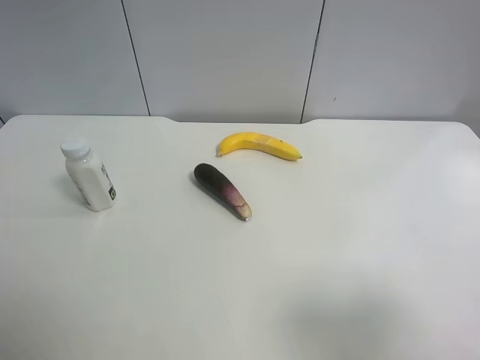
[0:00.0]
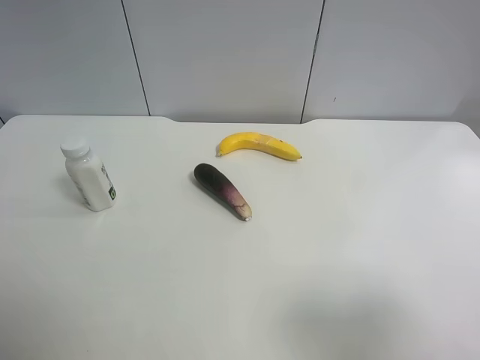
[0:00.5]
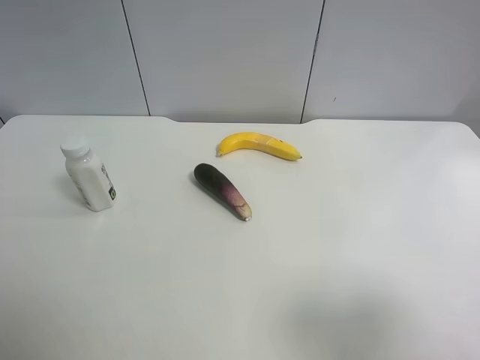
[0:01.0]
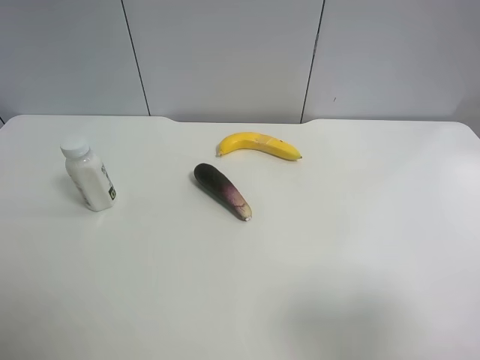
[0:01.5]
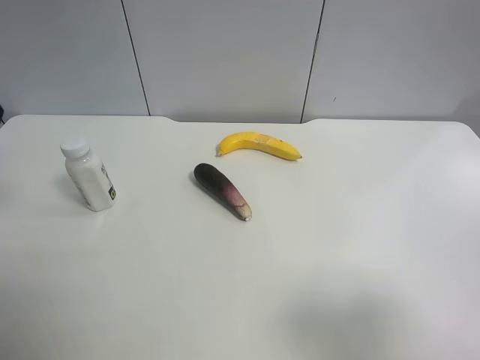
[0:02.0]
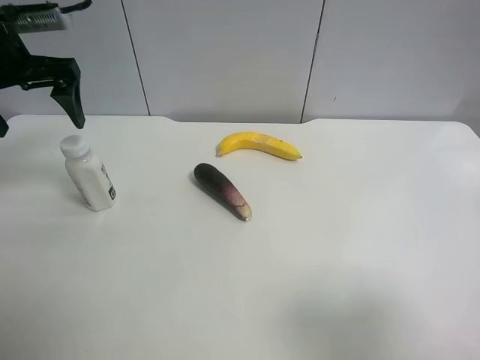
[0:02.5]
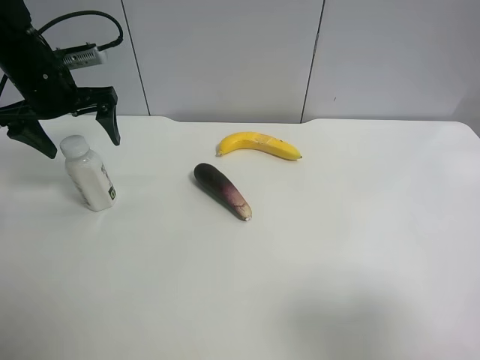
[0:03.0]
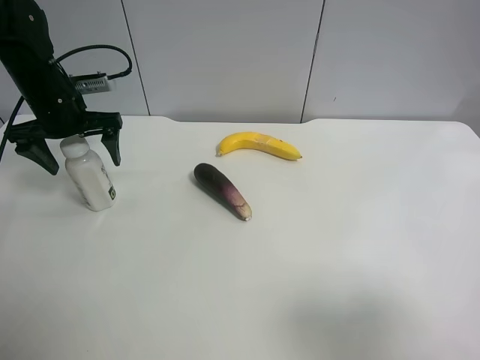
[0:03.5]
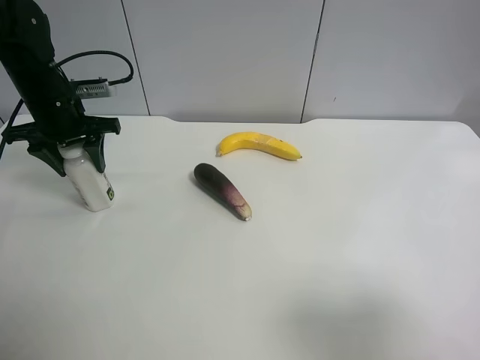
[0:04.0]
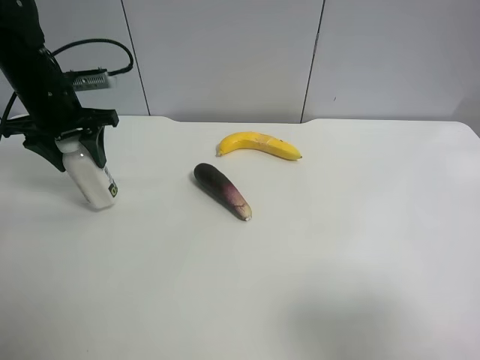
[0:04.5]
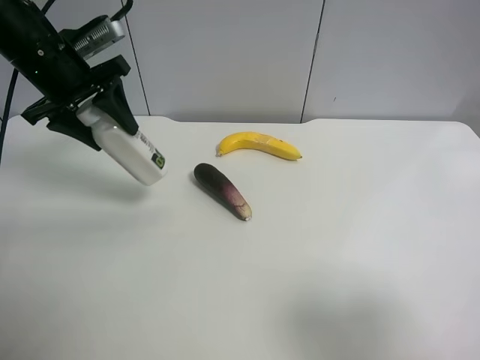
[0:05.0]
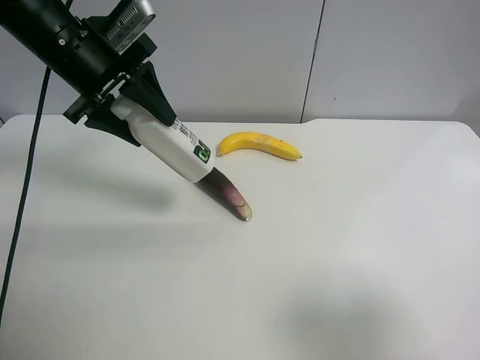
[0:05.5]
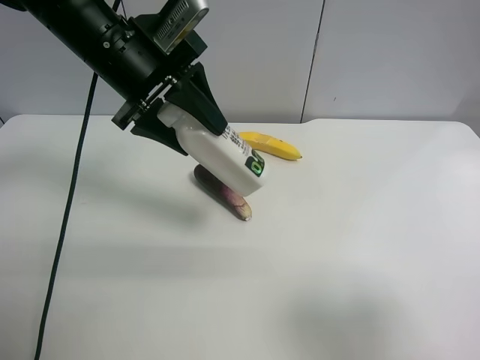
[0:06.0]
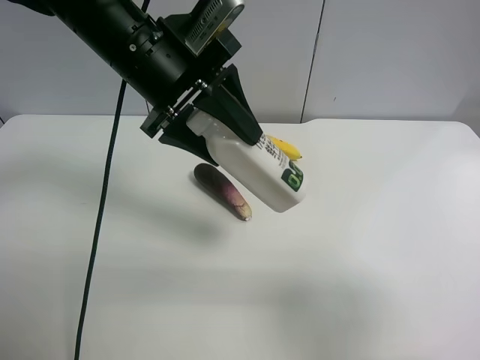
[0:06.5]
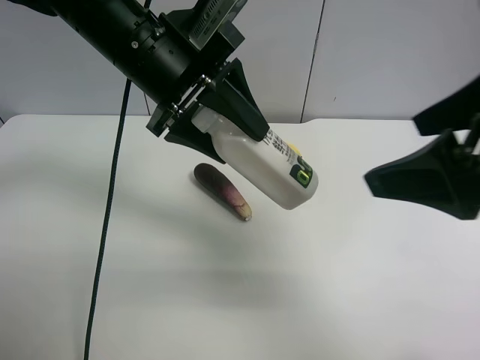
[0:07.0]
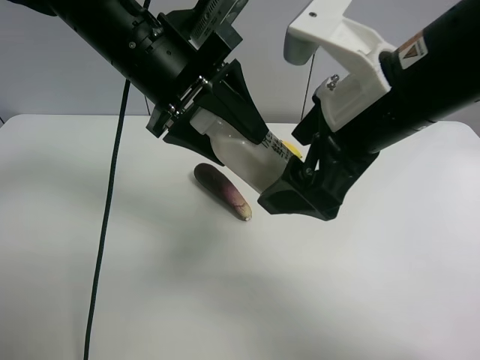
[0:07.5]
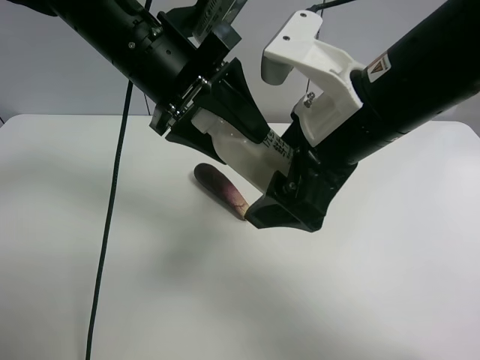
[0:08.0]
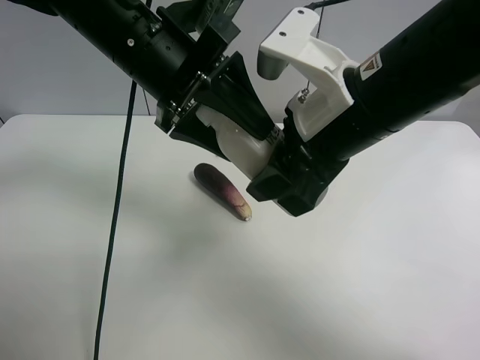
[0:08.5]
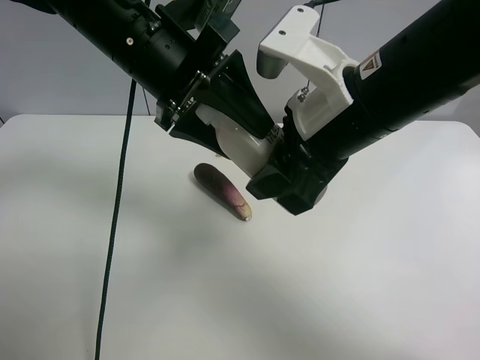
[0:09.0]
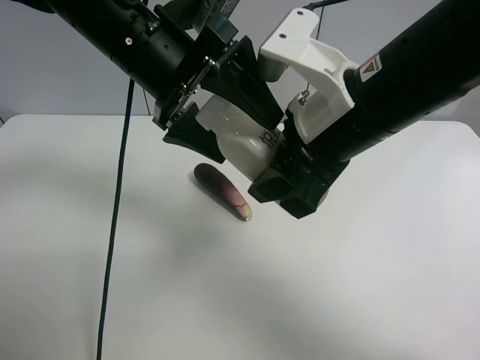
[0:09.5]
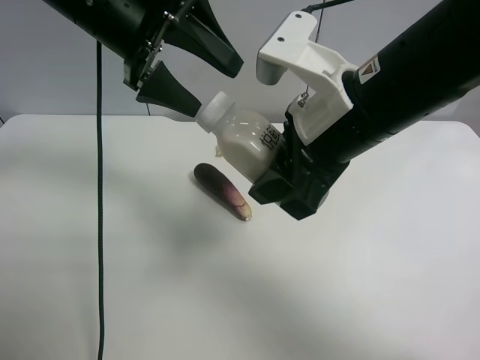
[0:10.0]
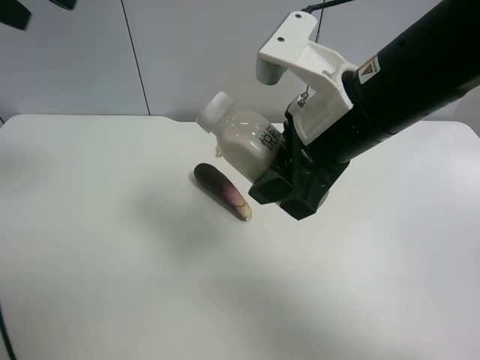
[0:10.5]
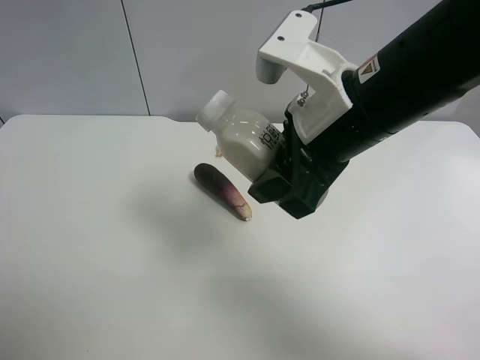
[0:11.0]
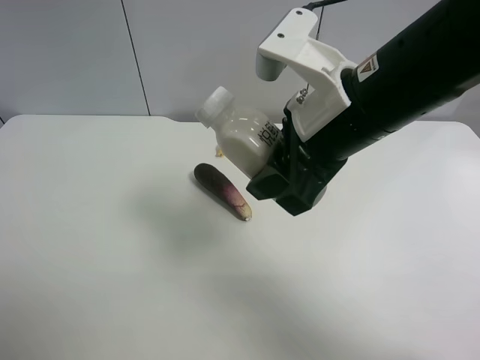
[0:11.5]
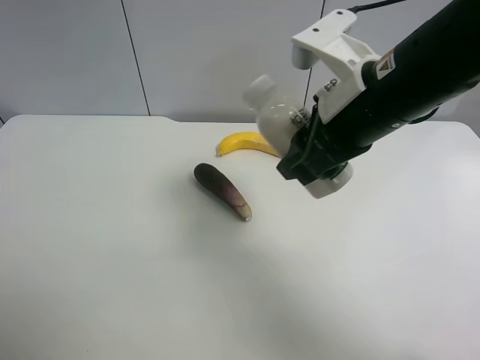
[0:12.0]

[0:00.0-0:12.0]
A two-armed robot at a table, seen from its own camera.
Task of the whole recording: use the left gripper to pick up the item and transfer it from the left gripper to the right gripper.
0:02.0 to 0:04.0: The left gripper is displaced downward and forward by approximately 20 cm, and closes.
0:04.0 to 0:06.0: The left gripper travels to the right, upward and backward by approximately 20 cm.
0:06.0 to 0:08.0: The left gripper changes place by some 5 cm, while the right gripper travels forward and to the left by roughly 25 cm.
0:08.0 to 0:10.0: The right gripper closes its fingers, while the left gripper moves to the left, about 5 cm, and opens up.
0:10.0 to 0:12.0: The left gripper moves backward and to the left, roughly 35 cm.

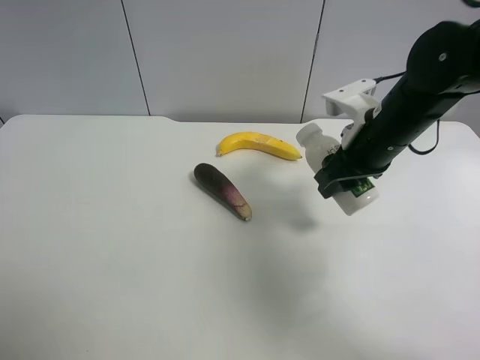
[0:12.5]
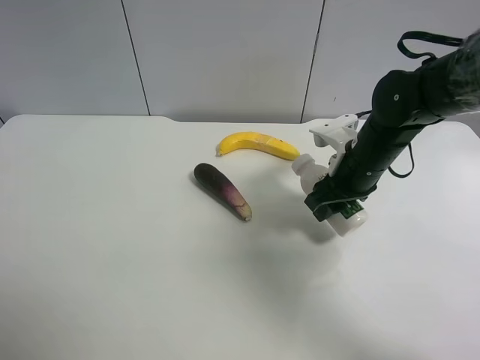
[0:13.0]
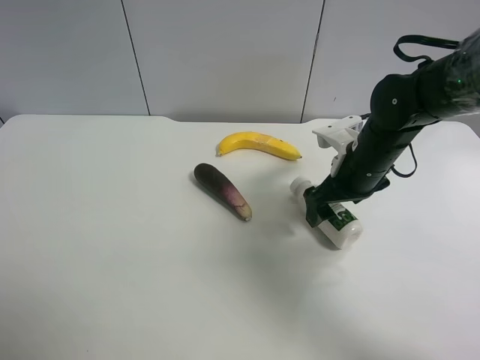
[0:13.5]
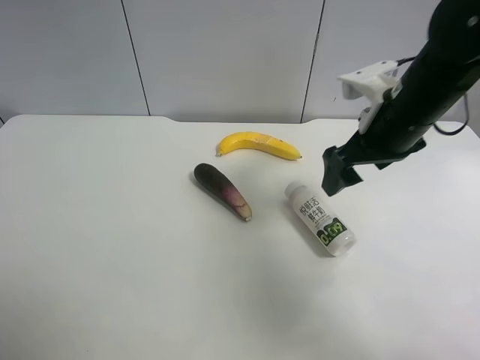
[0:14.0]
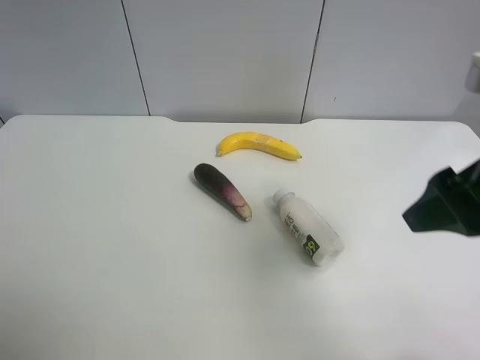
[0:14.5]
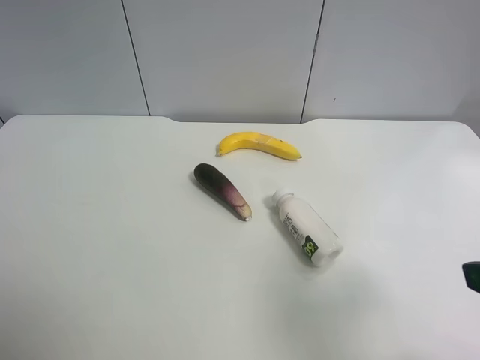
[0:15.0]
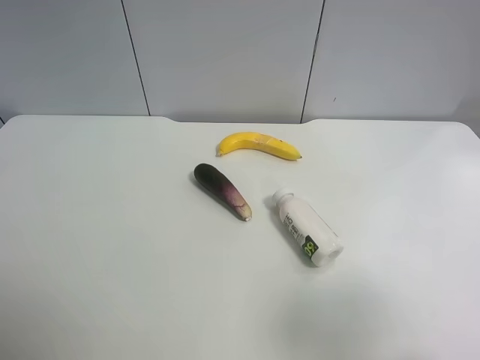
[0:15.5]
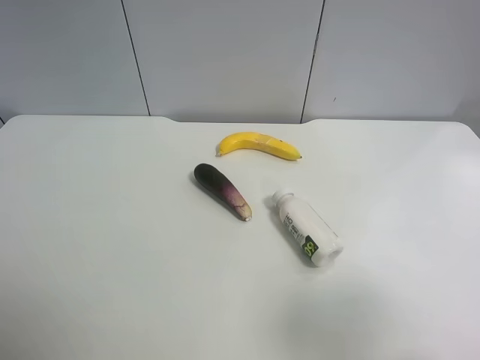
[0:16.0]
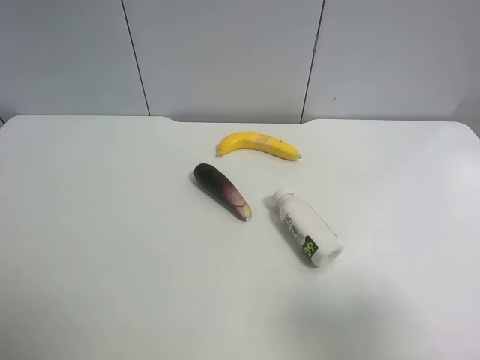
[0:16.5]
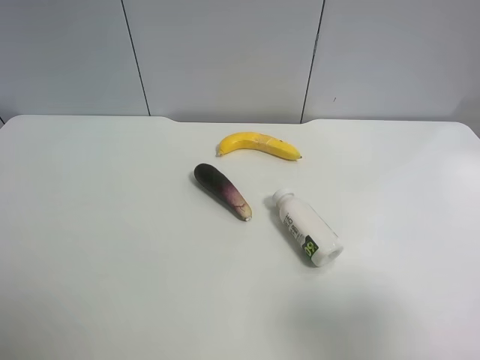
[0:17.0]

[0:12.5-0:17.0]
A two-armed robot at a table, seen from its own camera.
Task of the whole recording: use the left gripper to pick up the item and transfer it from the left gripper to the right gripper.
0:12.5 to 0:14.5: The right gripper travels backward and upward by some 15 cm, and opens.
0:14.5 to 0:17.0: The right gripper shifts approximately 15 cm backward.
